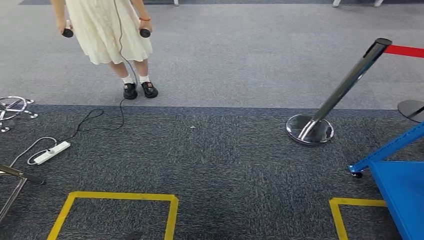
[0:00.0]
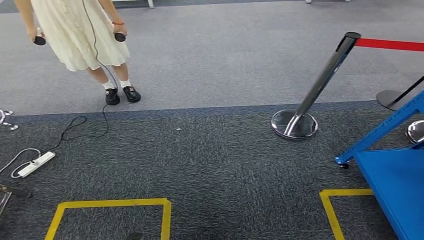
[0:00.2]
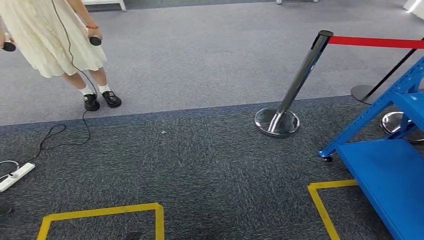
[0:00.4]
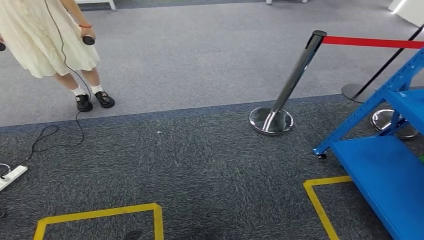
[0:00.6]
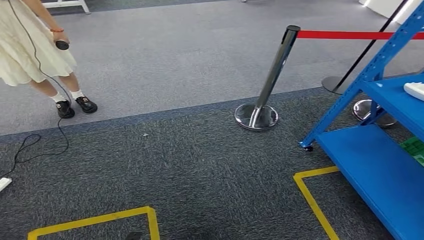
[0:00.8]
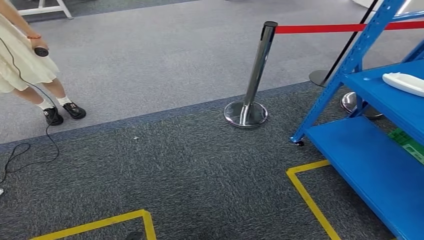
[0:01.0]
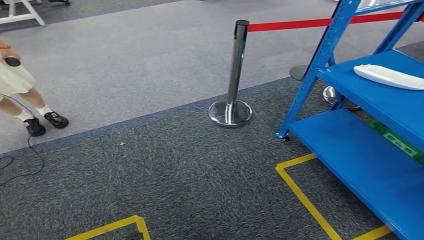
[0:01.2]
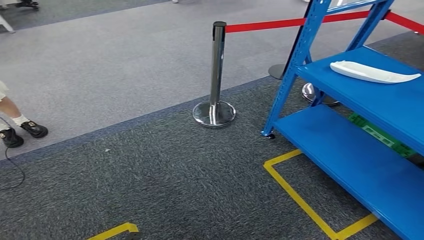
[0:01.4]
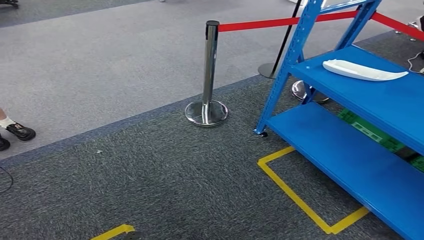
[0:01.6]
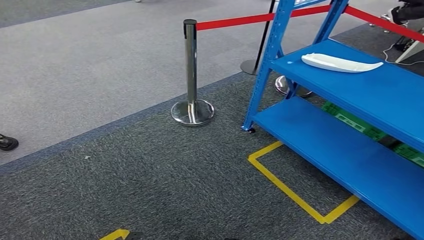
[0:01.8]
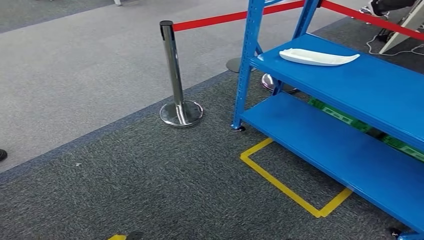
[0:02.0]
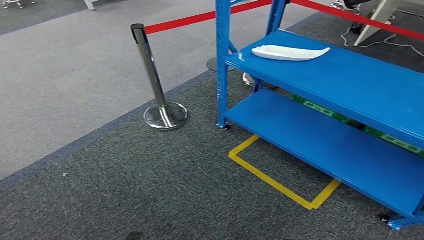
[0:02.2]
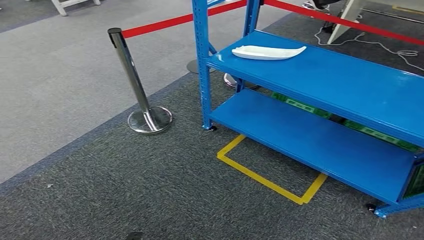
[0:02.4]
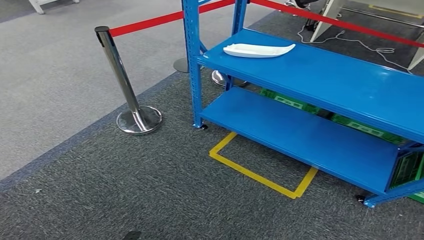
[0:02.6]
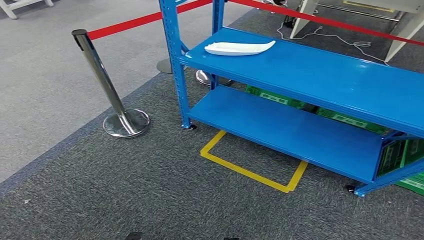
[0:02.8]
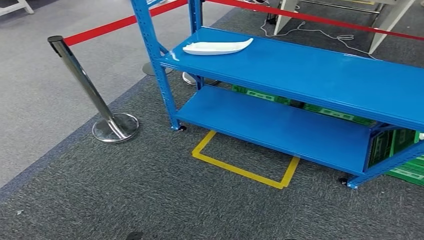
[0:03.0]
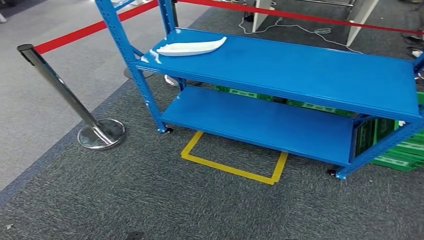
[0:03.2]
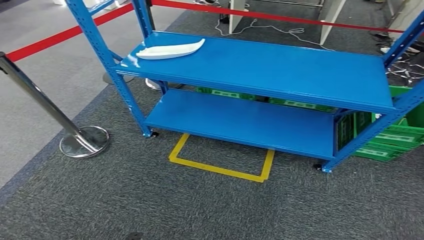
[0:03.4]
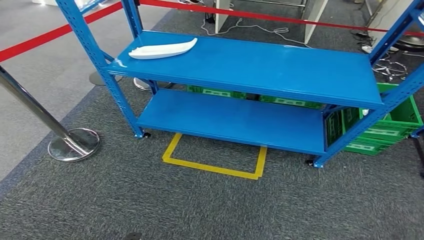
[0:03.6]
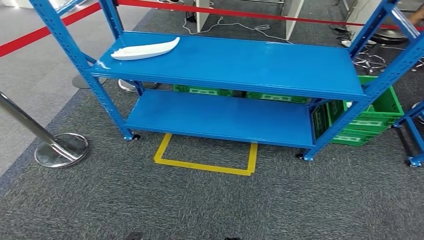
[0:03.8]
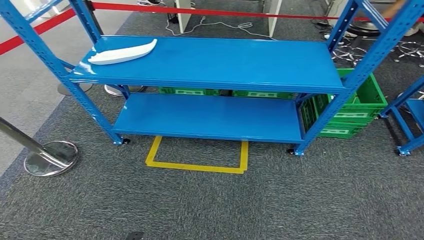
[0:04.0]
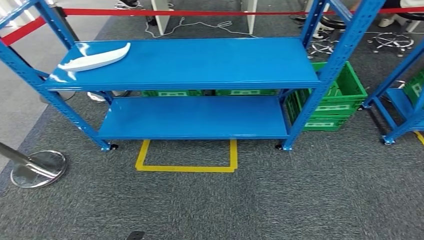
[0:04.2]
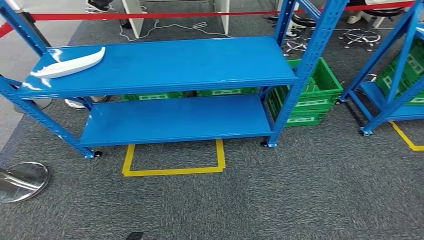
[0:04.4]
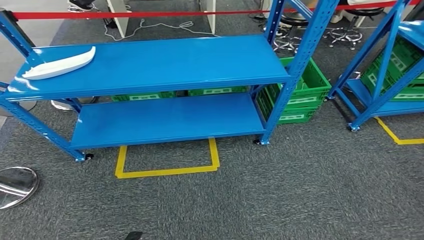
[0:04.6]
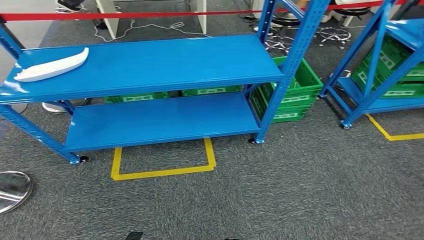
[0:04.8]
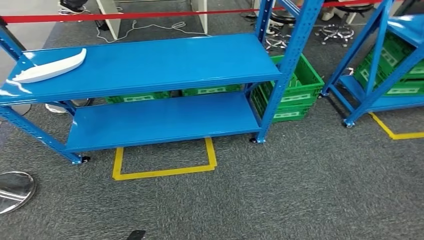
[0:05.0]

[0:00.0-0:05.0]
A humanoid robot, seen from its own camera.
Step, 0:00.0 to 0:05.0: Move to the initial position of the workbench.
